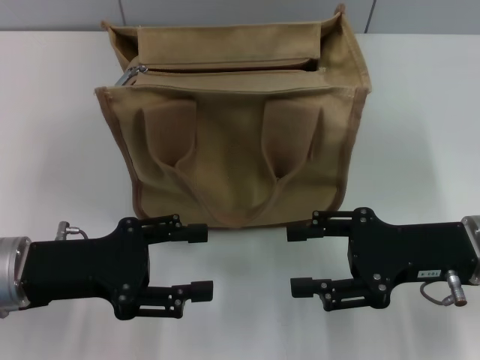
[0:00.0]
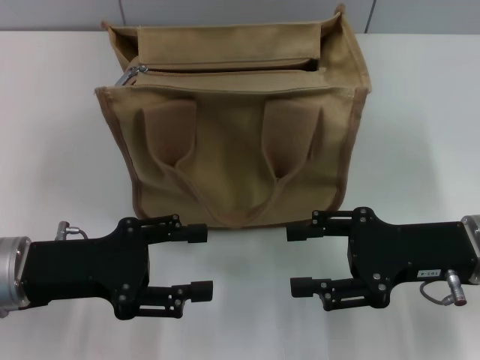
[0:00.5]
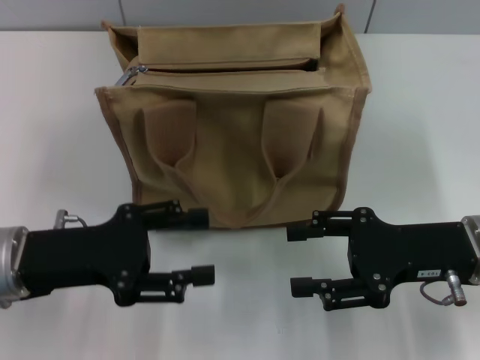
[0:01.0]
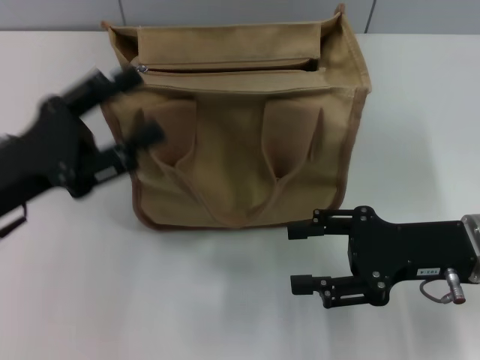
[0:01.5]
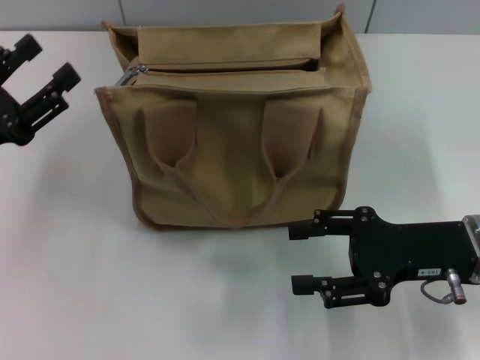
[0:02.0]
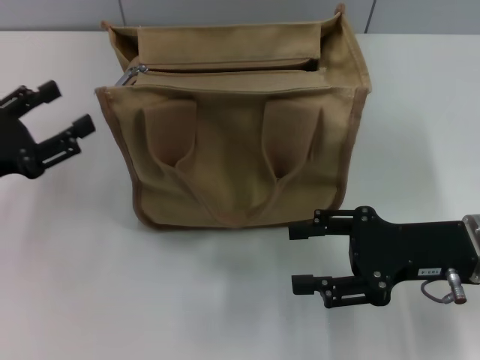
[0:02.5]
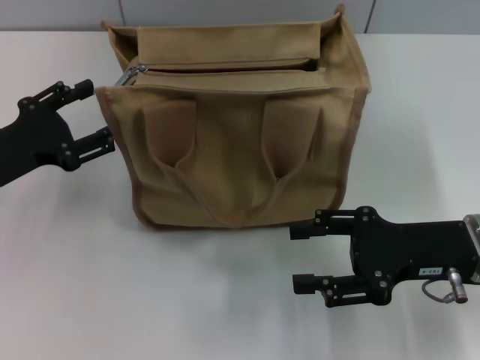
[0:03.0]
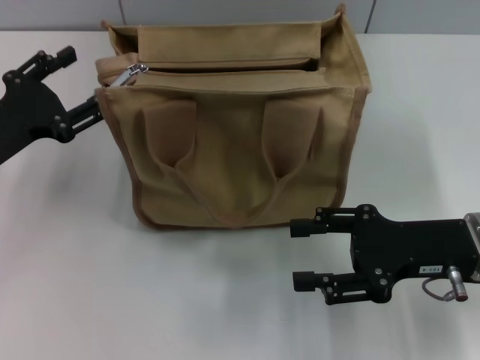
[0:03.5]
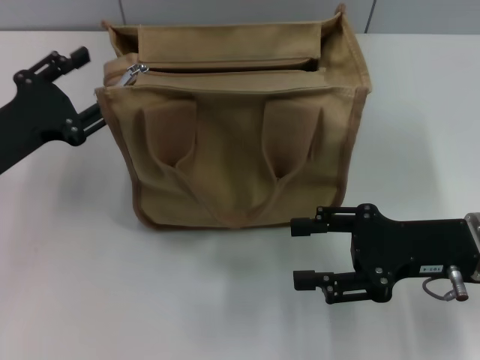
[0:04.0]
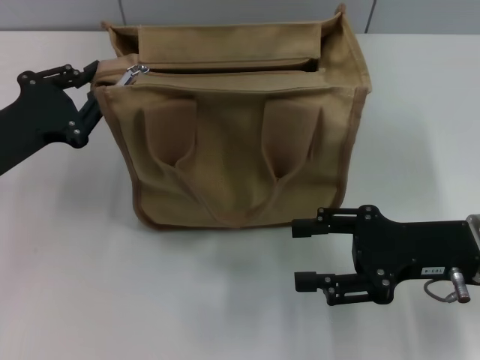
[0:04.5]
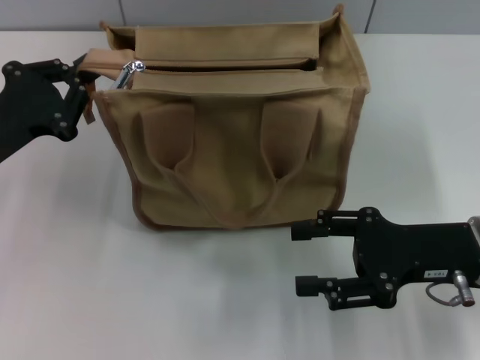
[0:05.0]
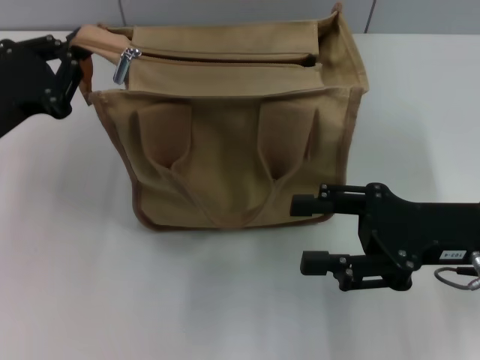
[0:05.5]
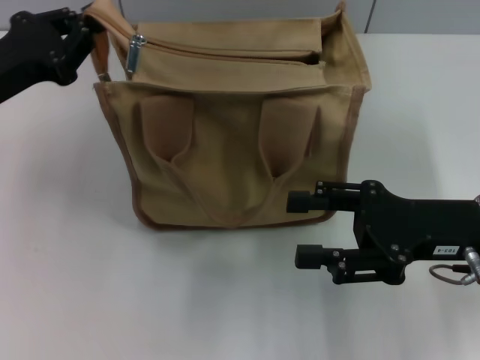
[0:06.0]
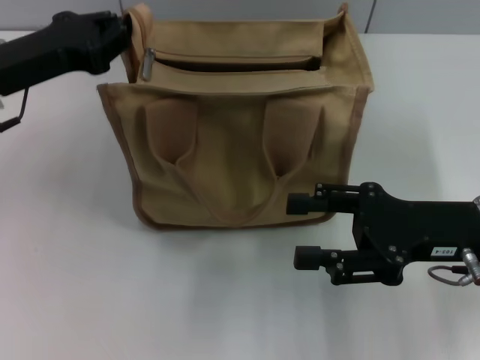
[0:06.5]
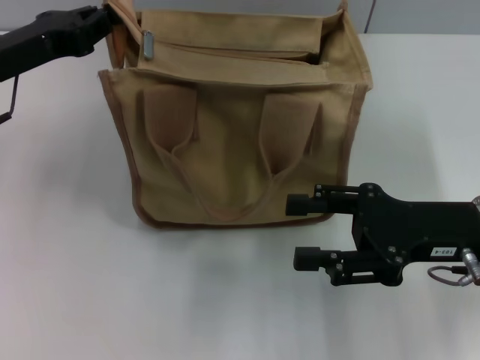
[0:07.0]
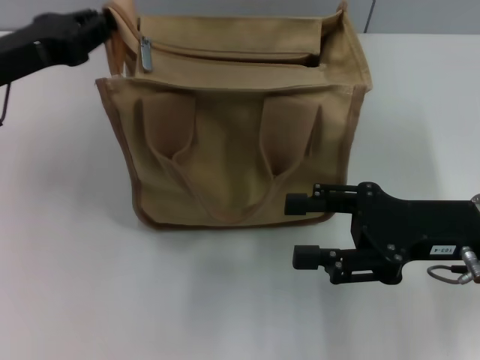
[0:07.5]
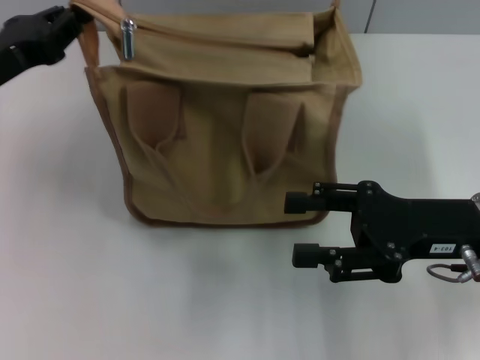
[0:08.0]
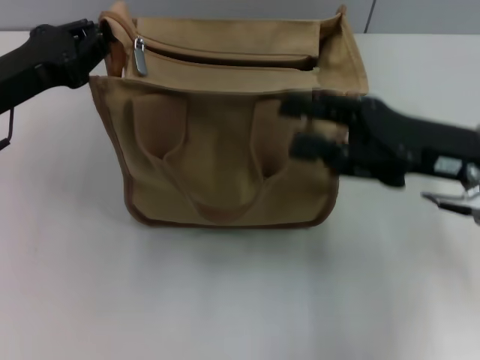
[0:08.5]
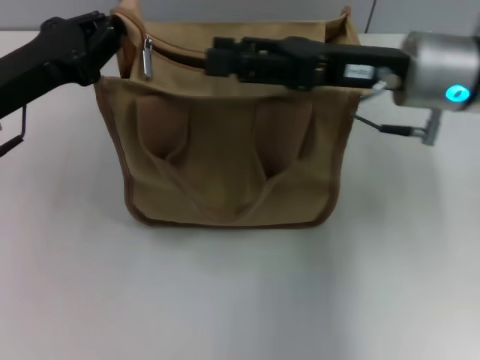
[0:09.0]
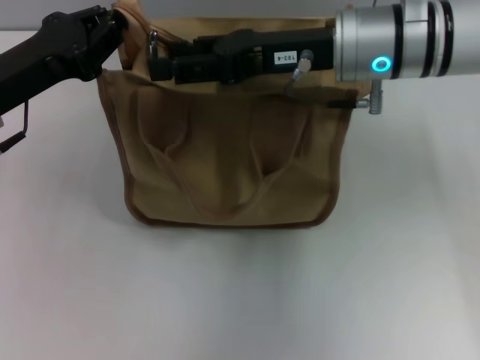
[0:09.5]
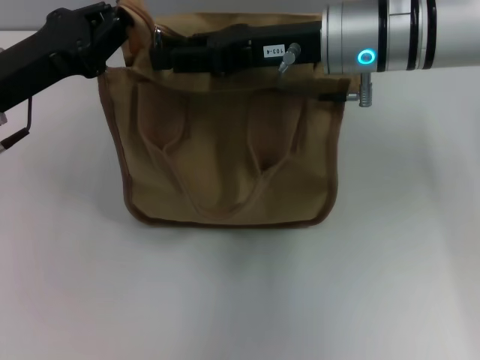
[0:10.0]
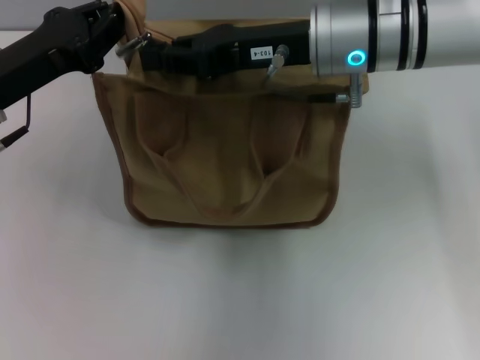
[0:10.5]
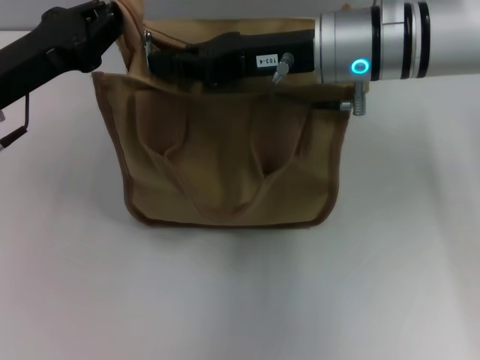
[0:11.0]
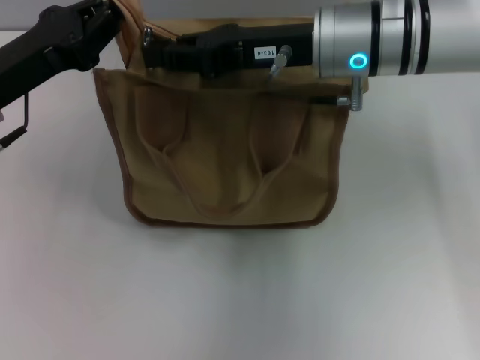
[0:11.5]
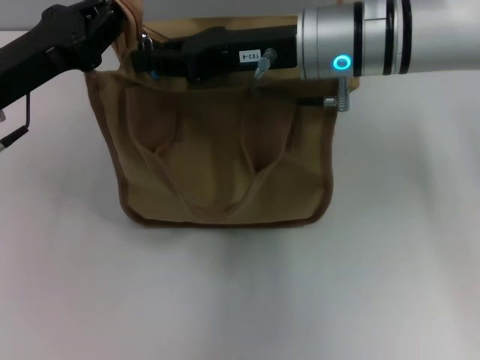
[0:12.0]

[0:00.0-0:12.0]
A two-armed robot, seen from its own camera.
0:00.0 to 0:02.0: The left gripper heads to the left, covering approximately 5 cm.
0:04.0 to 0:06.0: The left gripper travels upward by some 5 cm, and closes up.
0:08.0 to 0:10.0: The right gripper travels forward, to the left and upward by some 20 cm.
0:10.0 to 0:12.0: The right gripper closes up.

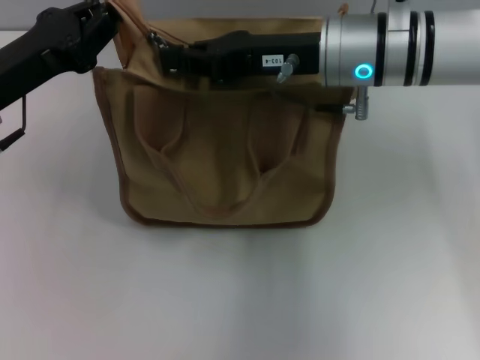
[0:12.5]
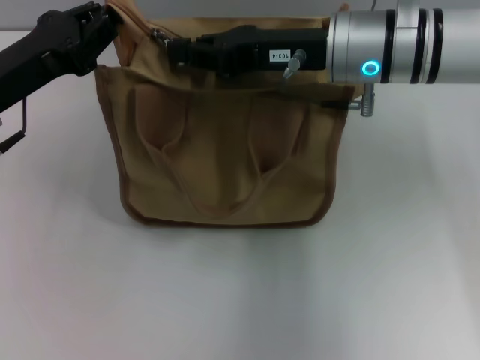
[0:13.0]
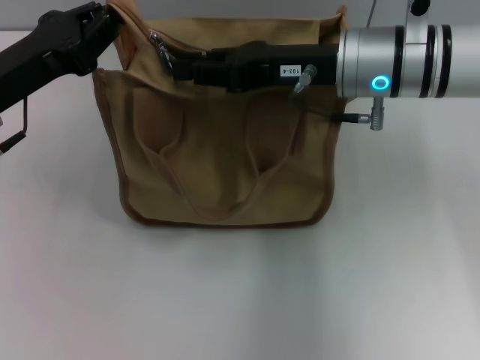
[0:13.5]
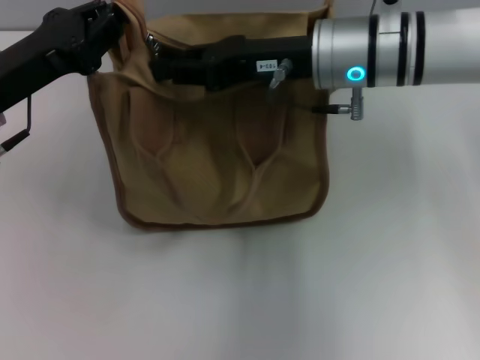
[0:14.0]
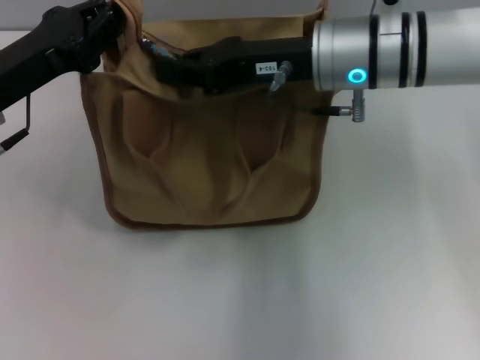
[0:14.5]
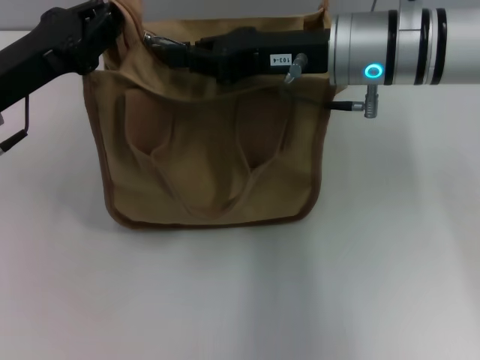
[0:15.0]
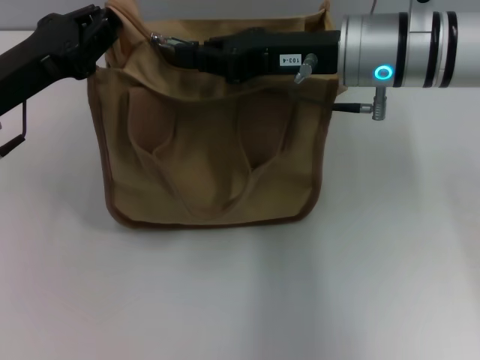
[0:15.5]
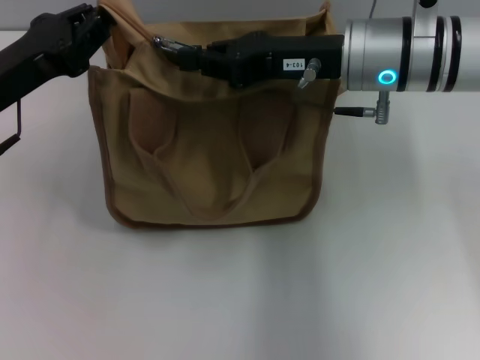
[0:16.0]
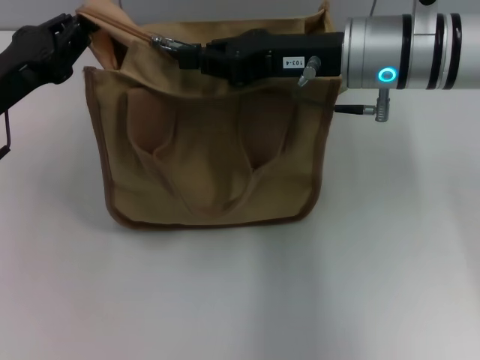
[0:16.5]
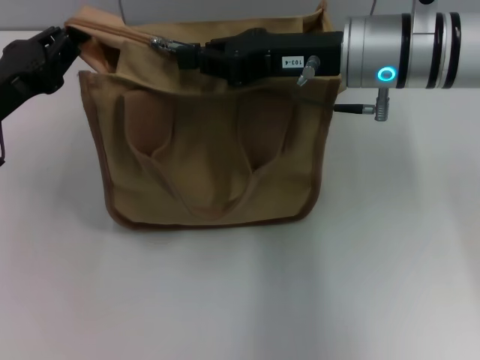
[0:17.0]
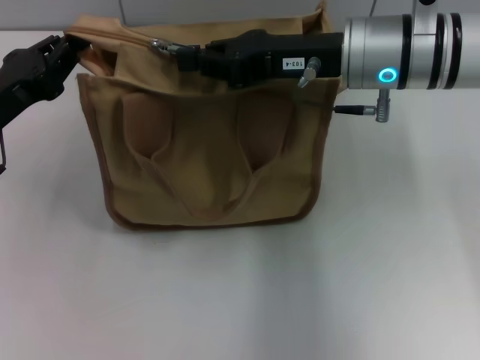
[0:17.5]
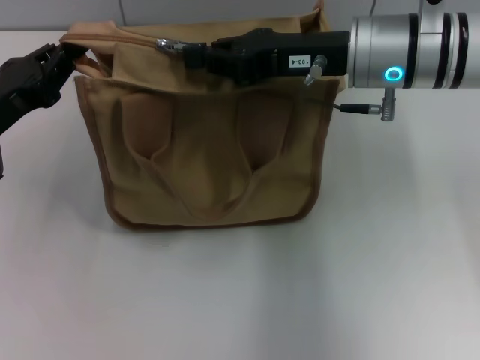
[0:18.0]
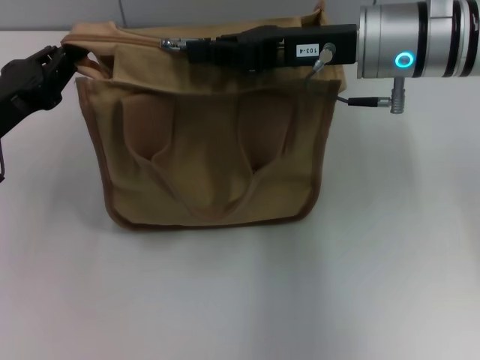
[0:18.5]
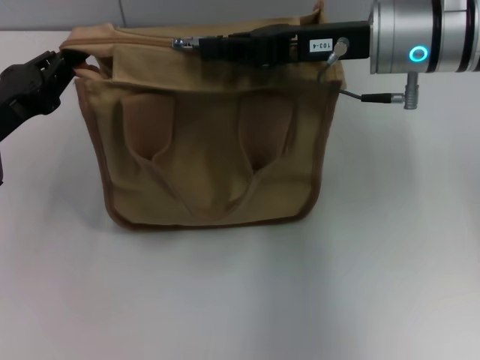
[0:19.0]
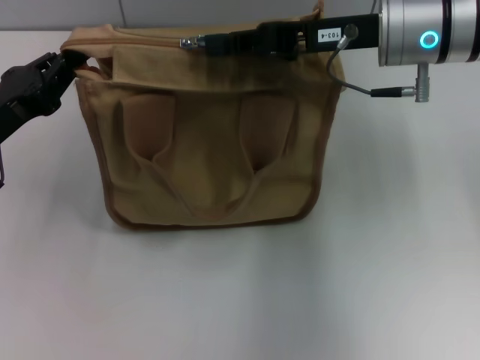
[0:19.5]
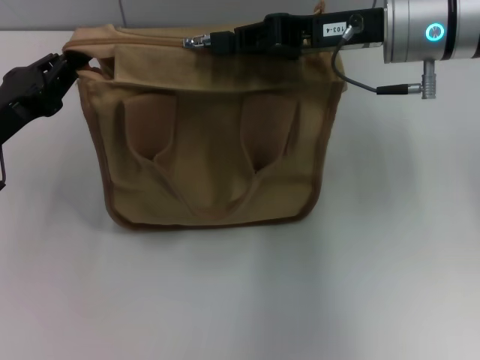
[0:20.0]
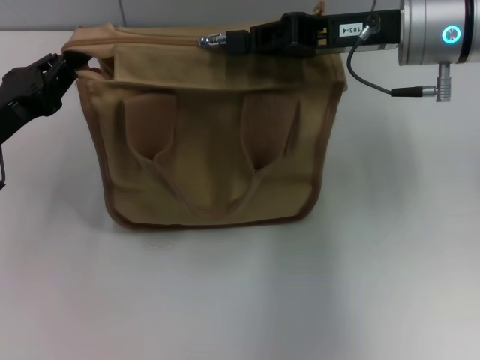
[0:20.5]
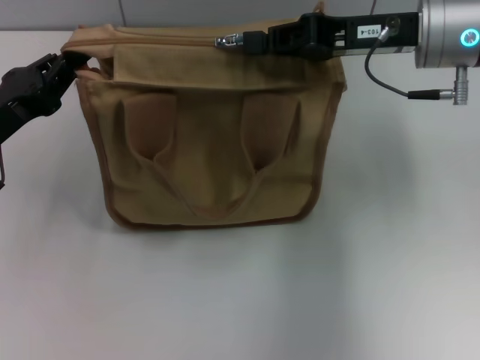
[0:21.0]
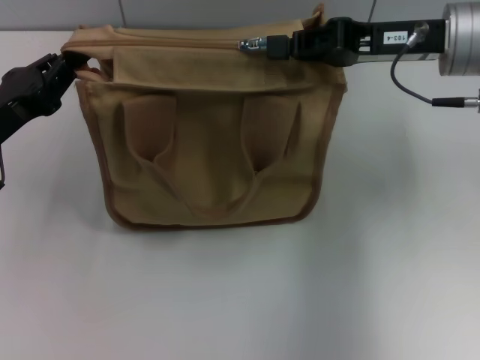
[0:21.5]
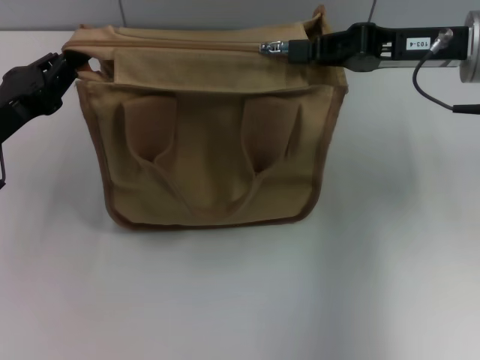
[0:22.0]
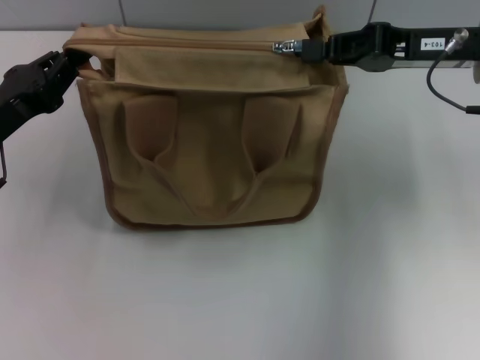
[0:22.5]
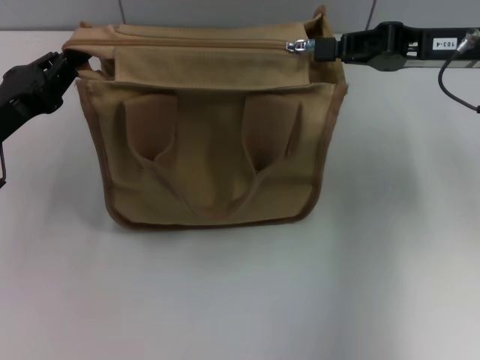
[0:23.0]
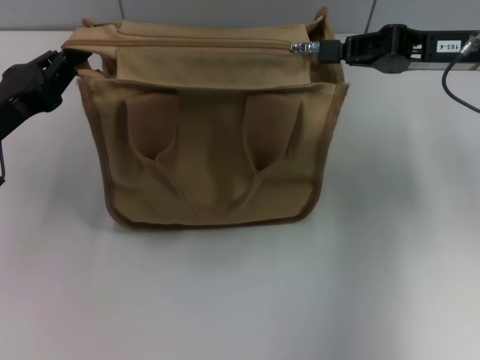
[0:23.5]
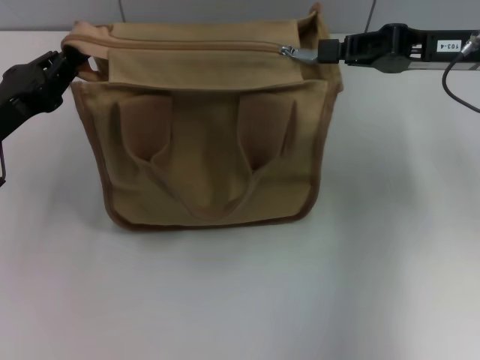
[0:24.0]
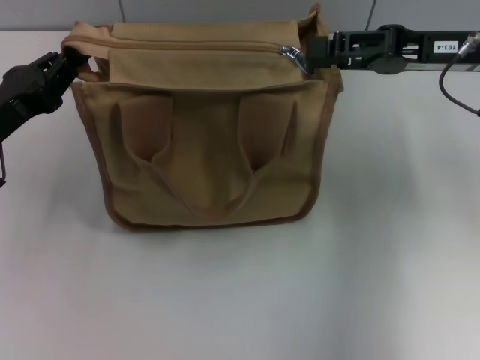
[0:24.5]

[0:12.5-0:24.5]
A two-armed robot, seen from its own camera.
Step, 0:12.5 to 0:24.0: Pull up the zipper with your right hand.
0:12.5 to 0:18.5: There are only small adjustments of the grippers.
0:18.5 to 0:20.5: The grippers make only small movements.
0:20.5 to 0:22.5: The right gripper moves to the right, some 5 cm.
0:22.5 to 0:24.5: Both grippers stay put.

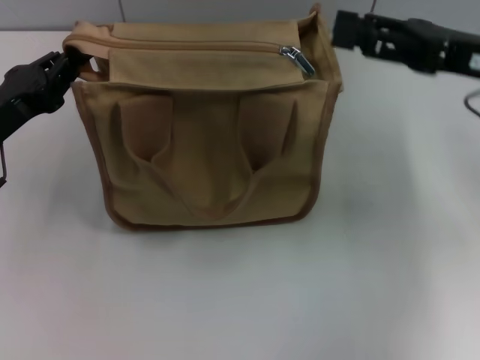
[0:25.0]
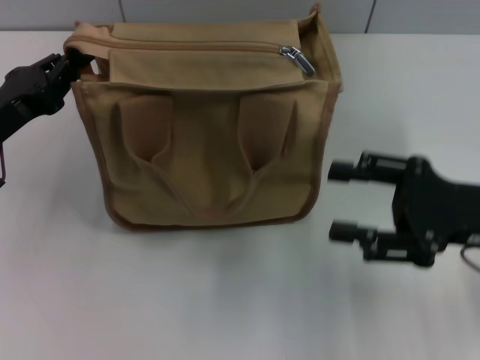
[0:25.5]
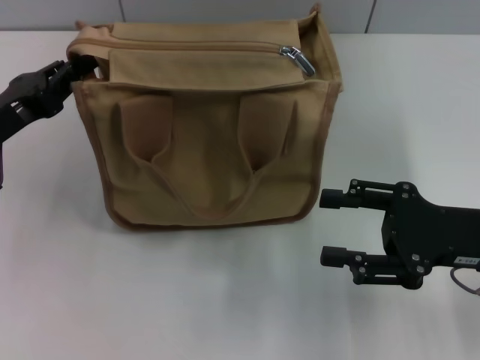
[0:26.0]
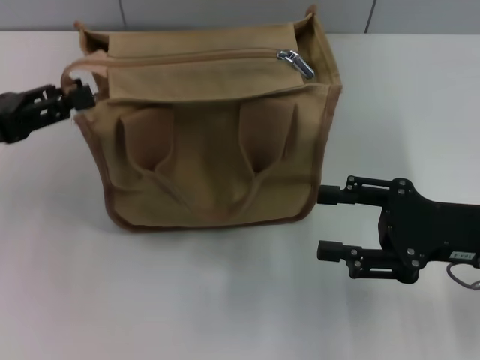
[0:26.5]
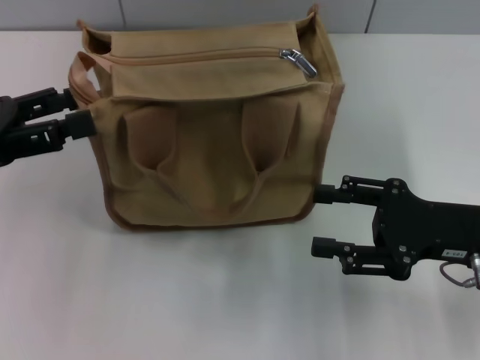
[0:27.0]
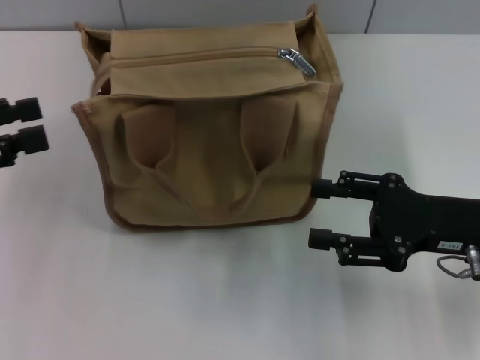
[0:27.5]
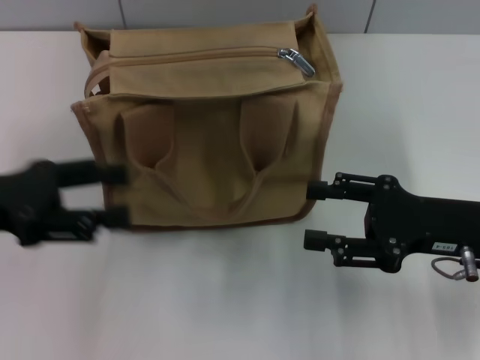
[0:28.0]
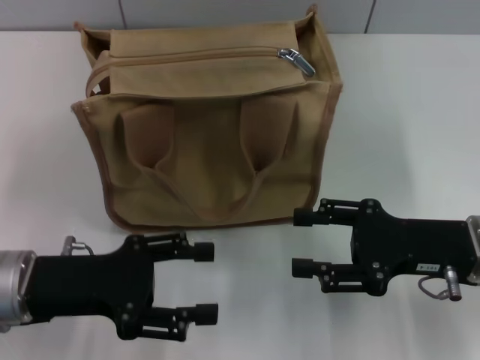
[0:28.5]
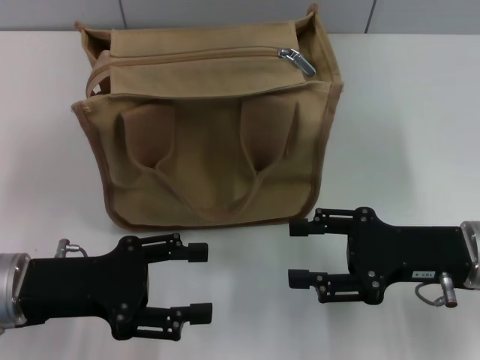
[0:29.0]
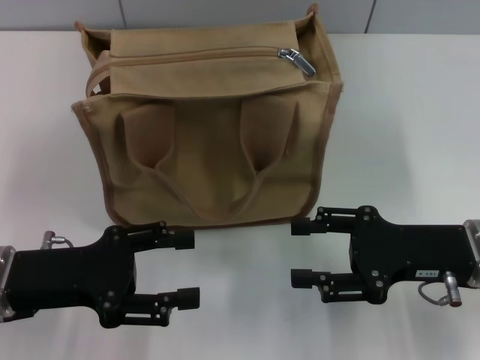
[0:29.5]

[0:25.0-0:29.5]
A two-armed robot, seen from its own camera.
Step, 0:25.0 to 0:27.0: Grab the zipper with your left hand.
0:25.0 to 0:27.0: The left gripper goes about 5 cm upward, and opens up. The right gripper is displaced downward and backward by some 10 cm.
0:27.0 to 0:29.5: The left gripper is displaced downward and to the right by about 10 cm.
